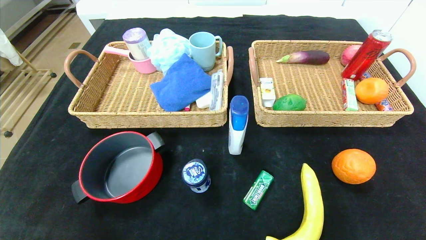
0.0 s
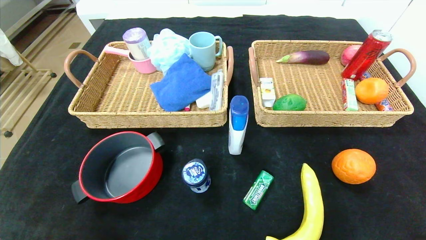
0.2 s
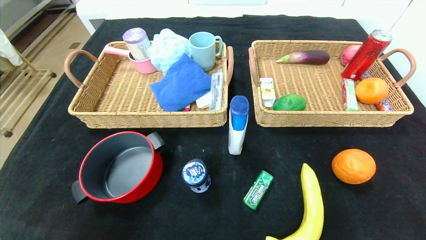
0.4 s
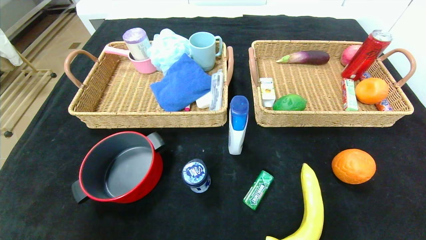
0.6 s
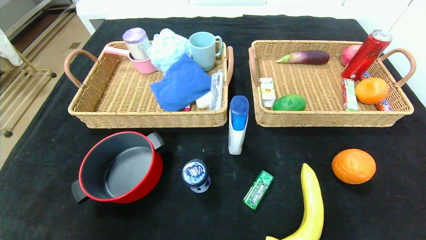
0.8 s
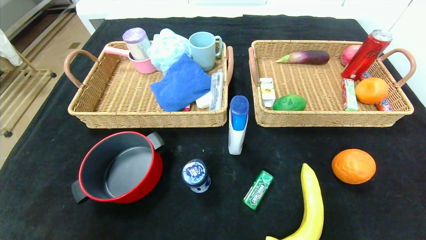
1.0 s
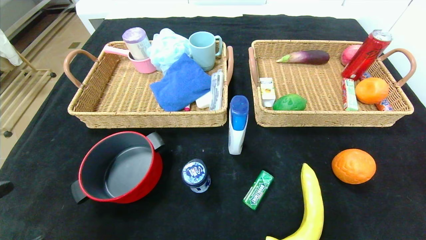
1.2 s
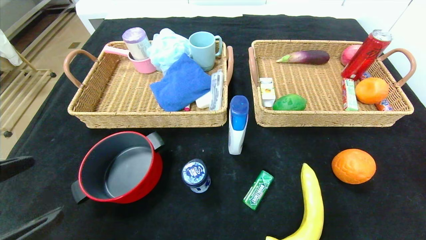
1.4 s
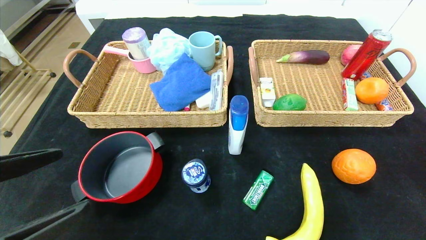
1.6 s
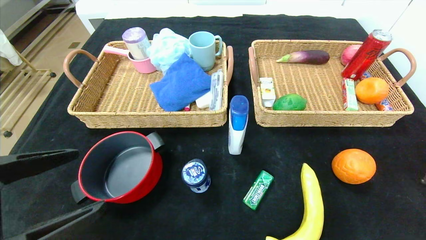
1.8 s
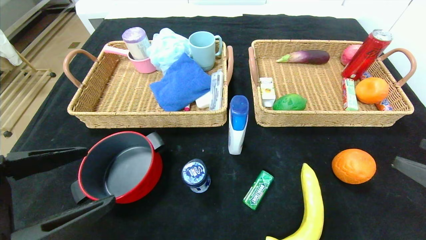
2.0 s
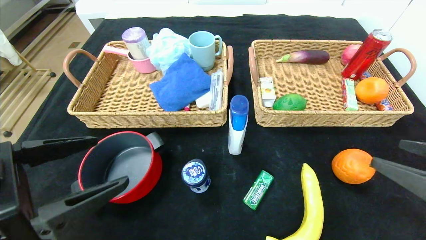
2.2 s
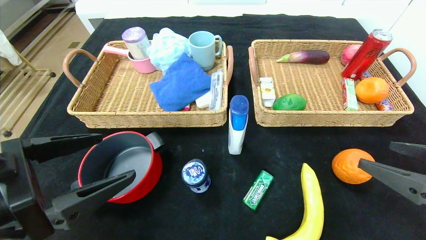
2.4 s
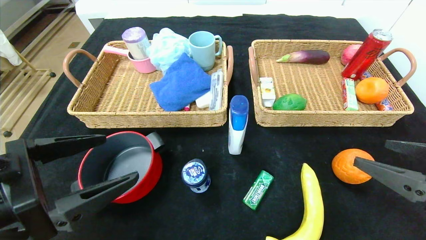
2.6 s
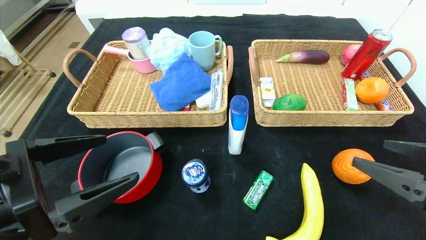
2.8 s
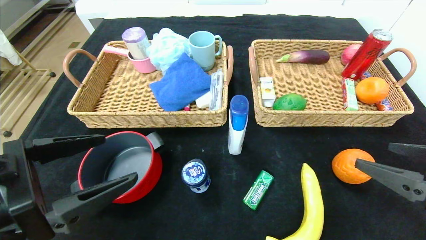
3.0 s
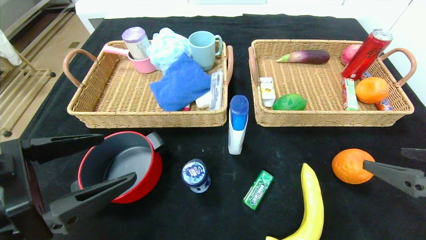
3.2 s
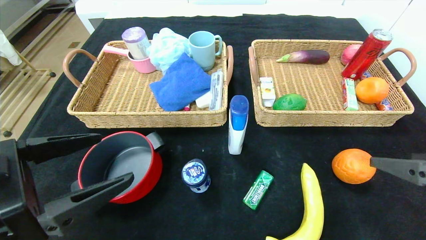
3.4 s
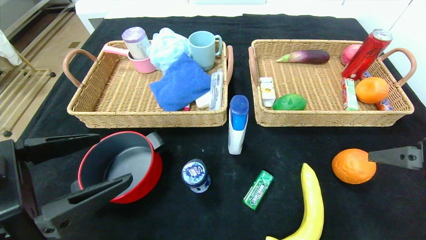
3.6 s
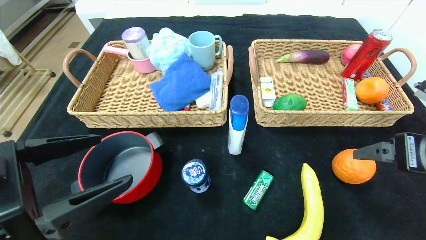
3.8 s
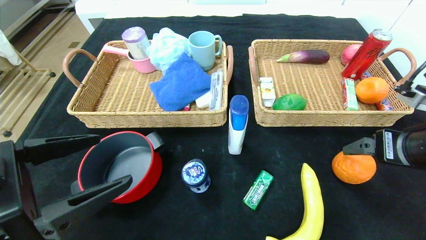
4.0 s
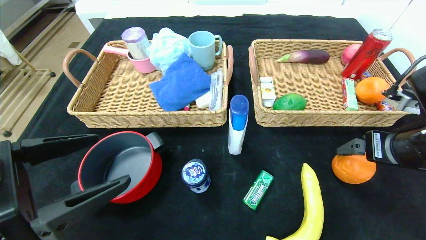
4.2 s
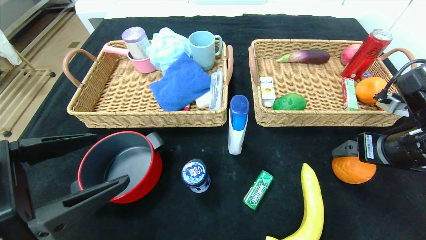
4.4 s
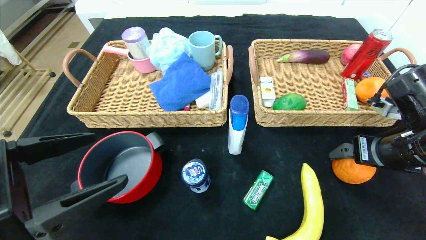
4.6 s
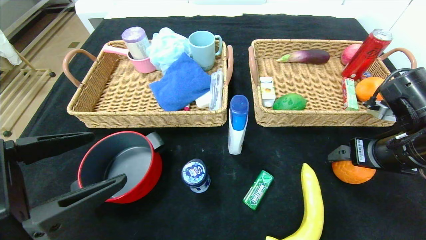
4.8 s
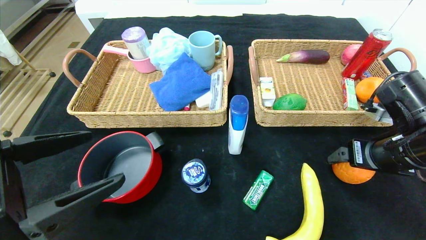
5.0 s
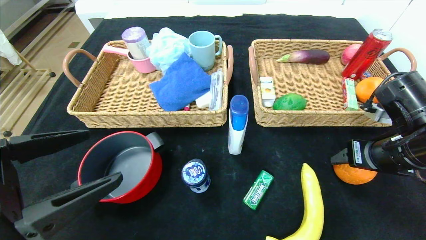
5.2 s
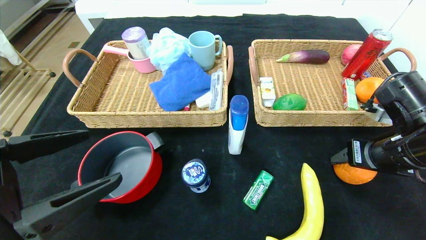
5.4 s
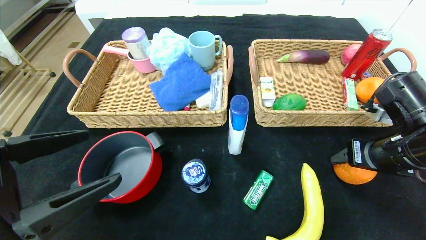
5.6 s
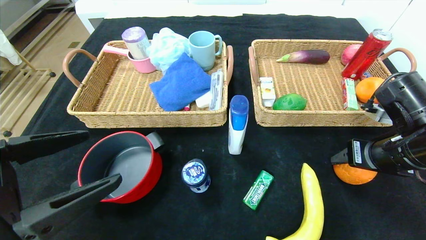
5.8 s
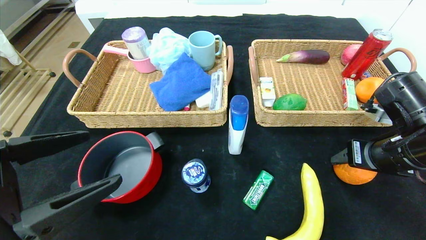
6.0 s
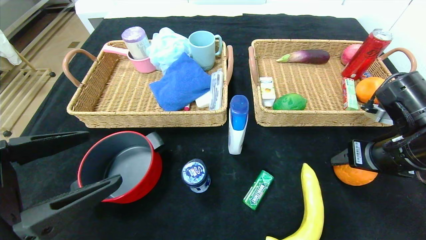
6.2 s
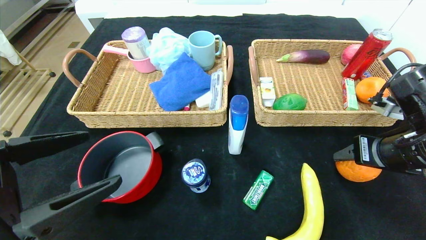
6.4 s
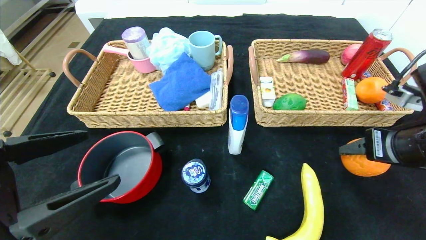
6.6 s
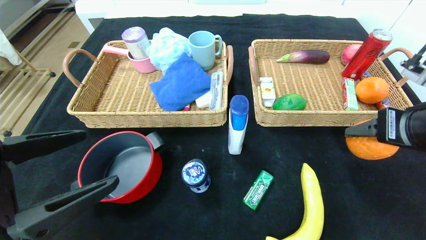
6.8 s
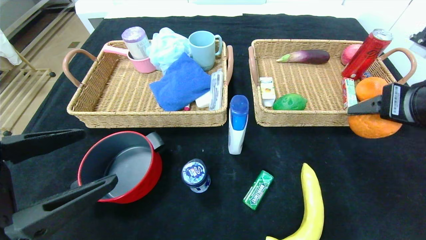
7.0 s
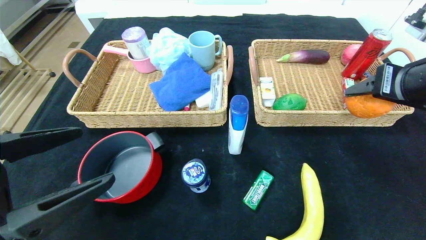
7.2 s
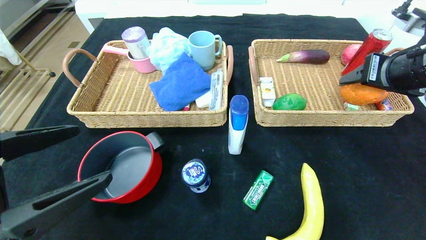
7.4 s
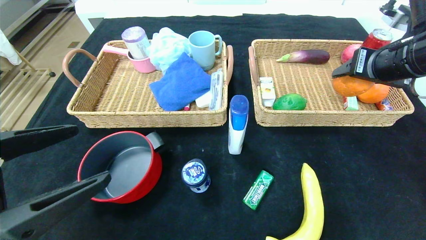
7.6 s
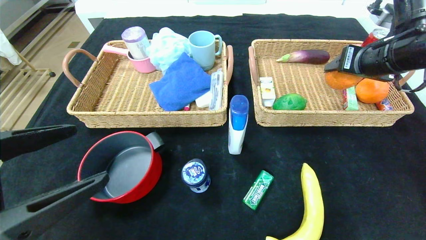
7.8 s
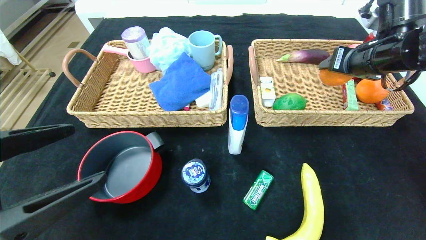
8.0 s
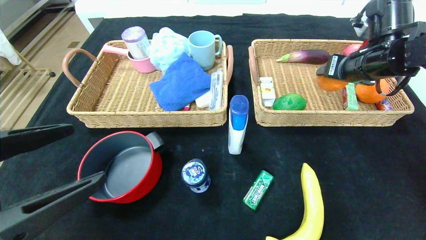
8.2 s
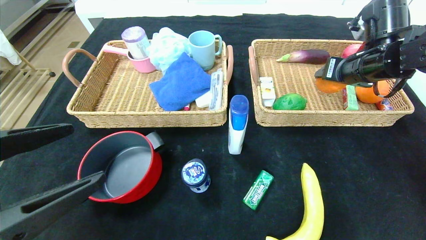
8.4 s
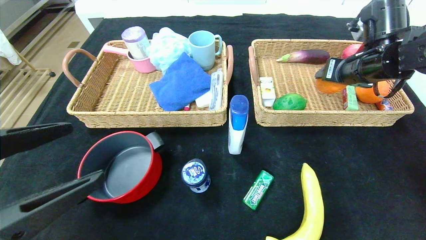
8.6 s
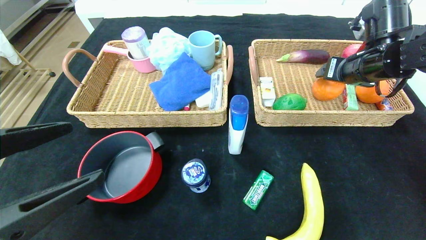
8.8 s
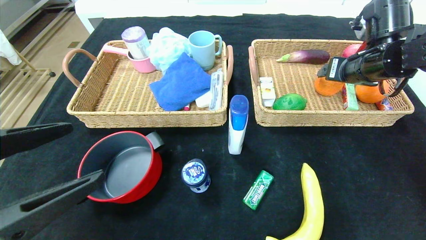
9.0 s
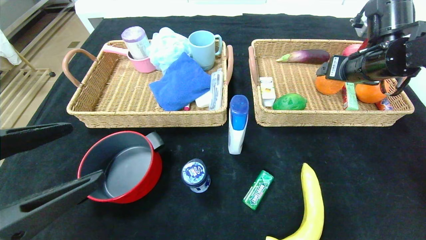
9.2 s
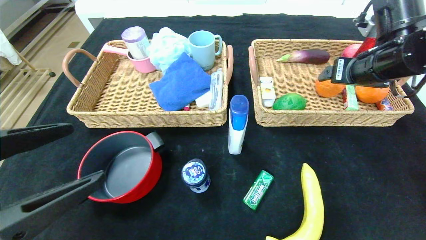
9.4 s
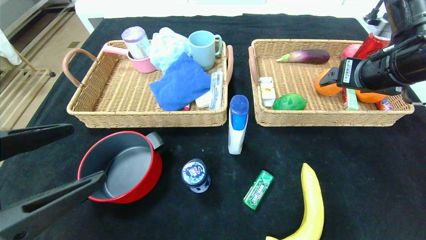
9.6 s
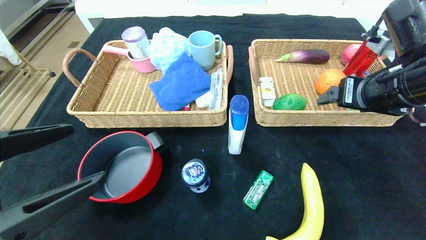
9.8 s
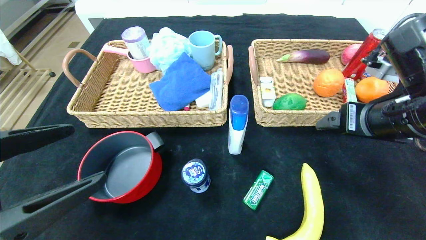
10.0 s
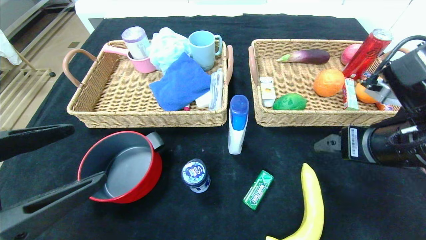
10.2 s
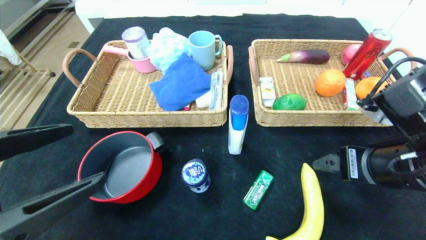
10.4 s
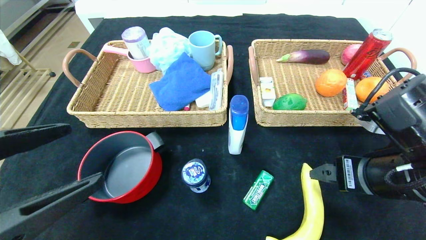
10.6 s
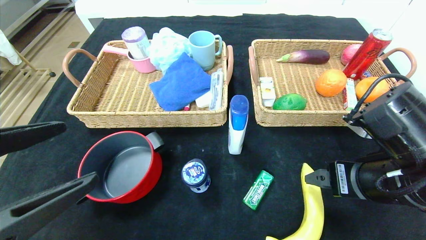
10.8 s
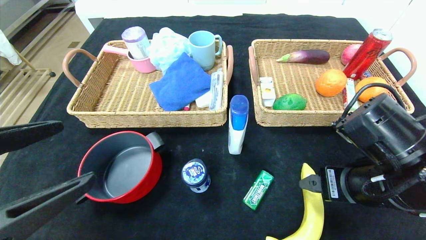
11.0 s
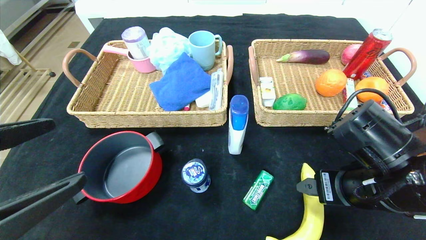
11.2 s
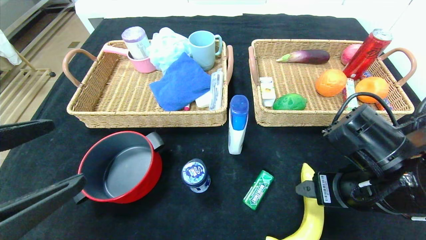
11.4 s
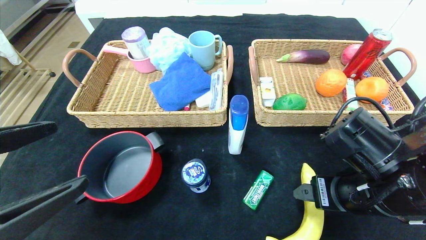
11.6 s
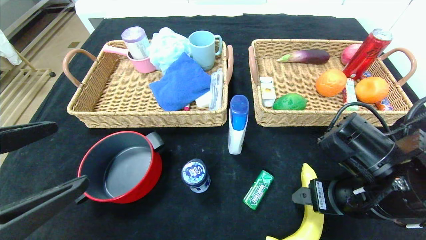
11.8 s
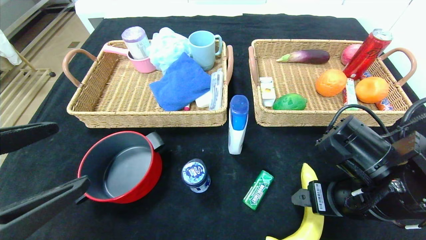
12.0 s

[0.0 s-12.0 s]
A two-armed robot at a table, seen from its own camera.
Step, 0.0 to 10.2 s: Pick up the orange and put it in the right basket.
0.0 to 1.6 s: The two grippers go roughly 20 cm upward and forward.
1.6 to 3.0 s: The right gripper heads forward, covering some 5 cm.
3.0 to 4.4 s: The right gripper travels forward by roughly 10 cm.
4.4 to 6.0 s: The right gripper closes its fingers.
6.0 to 7.6 s: The right gripper heads upward and forward, covering some 15 cm.
7.6 to 9.0 s: The right gripper heads forward, covering approximately 5 cm.
9.0 to 10.4 s: The right gripper goes about 20 cm backward.
10.4 to 12.0 s: The right gripper travels downward by approximately 5 cm.

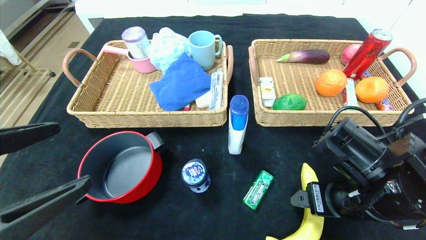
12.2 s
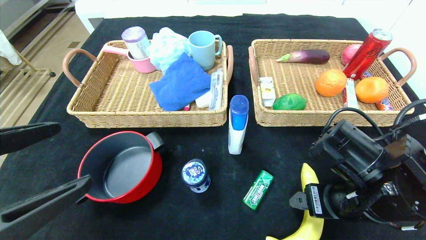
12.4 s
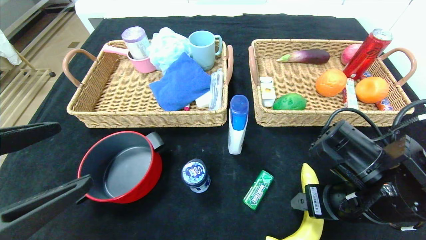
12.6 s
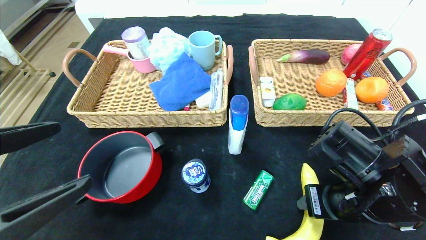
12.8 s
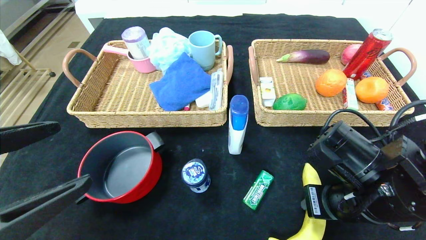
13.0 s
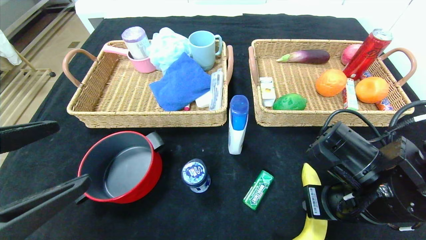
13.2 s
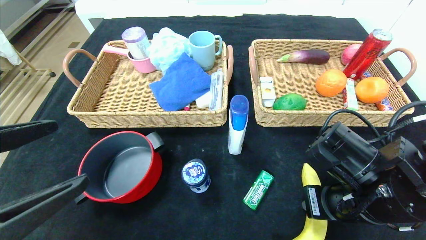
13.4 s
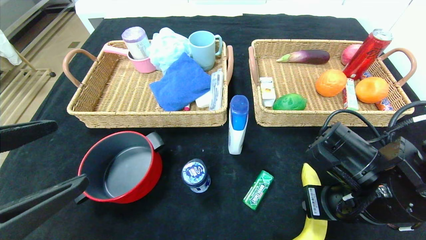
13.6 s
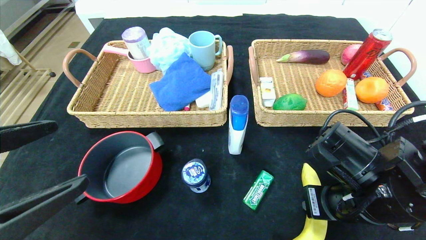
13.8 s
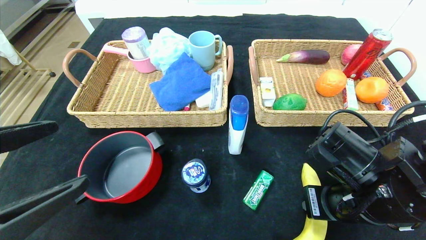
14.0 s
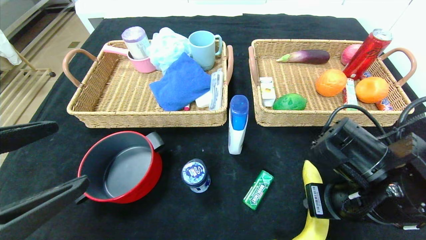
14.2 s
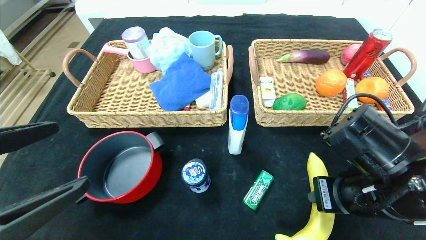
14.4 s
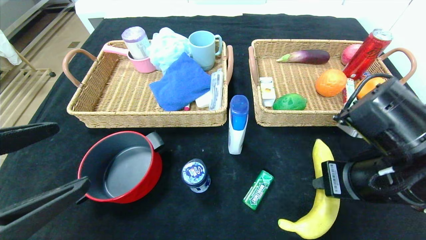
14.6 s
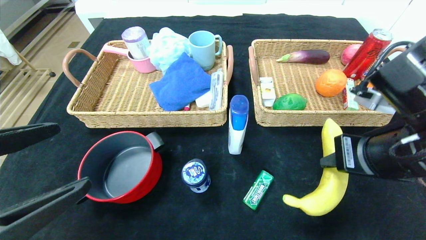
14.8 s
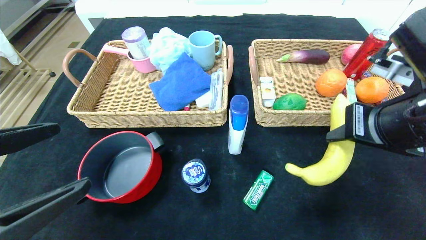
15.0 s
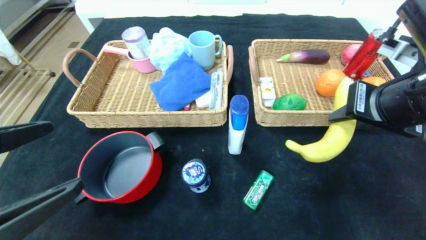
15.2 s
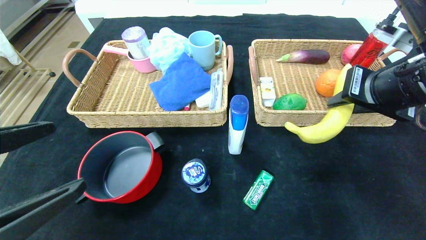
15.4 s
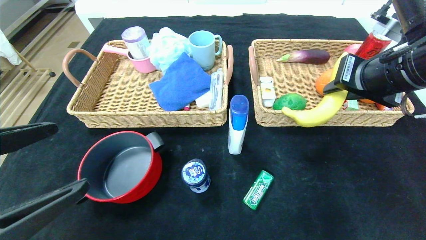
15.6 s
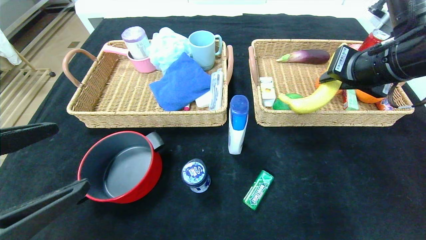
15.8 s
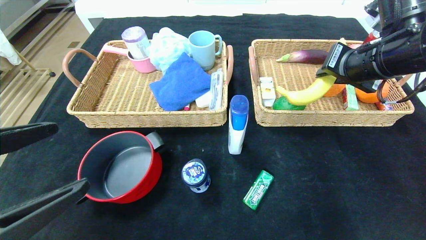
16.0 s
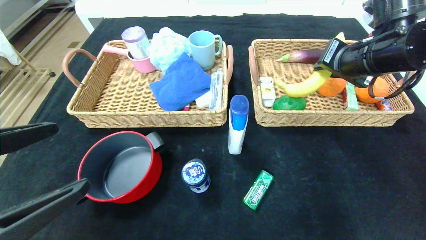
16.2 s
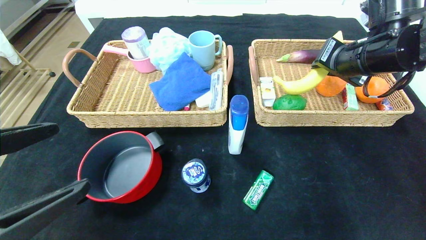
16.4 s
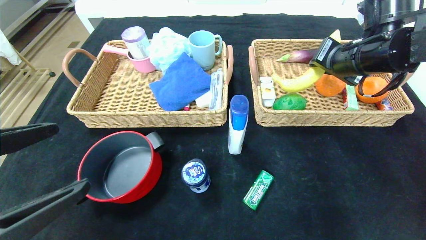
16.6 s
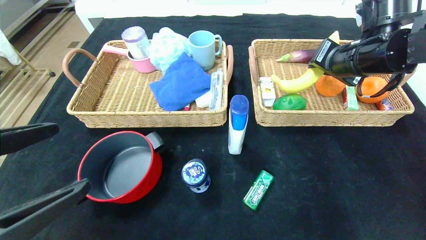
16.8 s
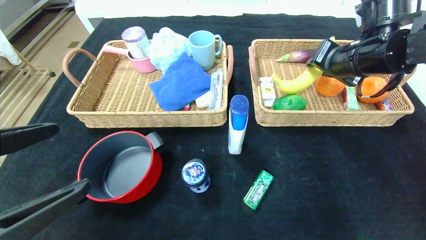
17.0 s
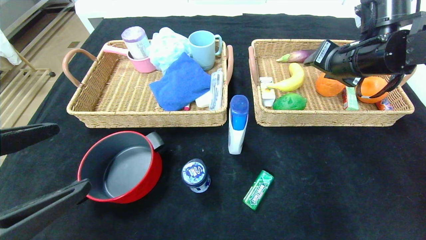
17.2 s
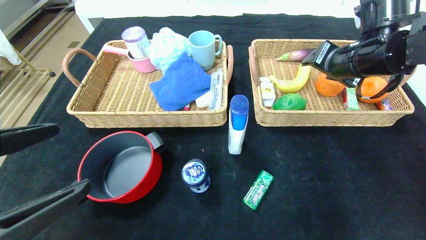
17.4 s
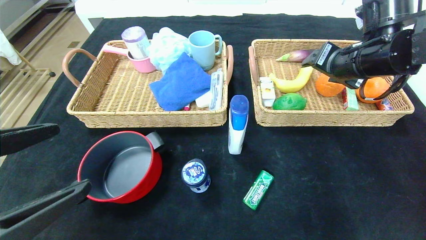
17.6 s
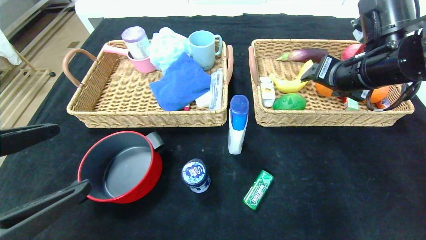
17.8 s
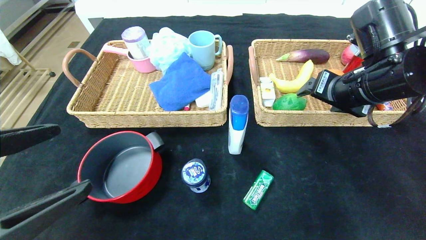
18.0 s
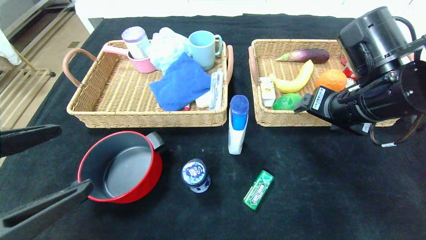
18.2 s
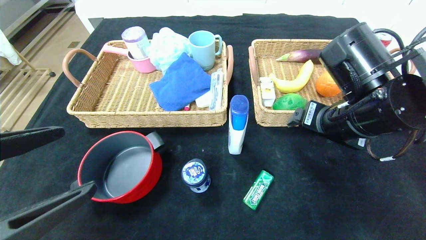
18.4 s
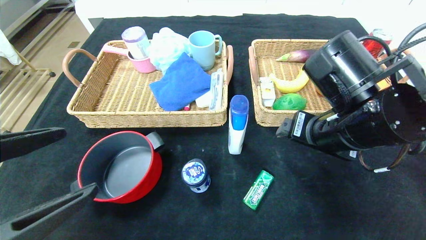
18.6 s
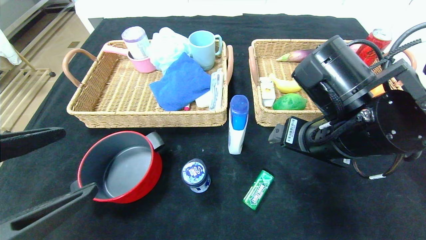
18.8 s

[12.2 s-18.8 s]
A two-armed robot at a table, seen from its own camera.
12.2 to 13.8 s: The right gripper closes.
13.8 to 15.4 s: The right gripper heads upward, covering about 15 cm.
15.4 to 17.2 s: The right gripper goes approximately 10 cm forward, and opens up.
17.2 to 18.8 s: The right gripper goes approximately 15 cm backward, to the left and downward, and opens up.
